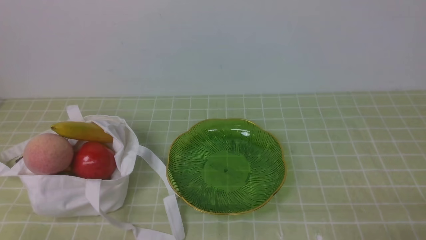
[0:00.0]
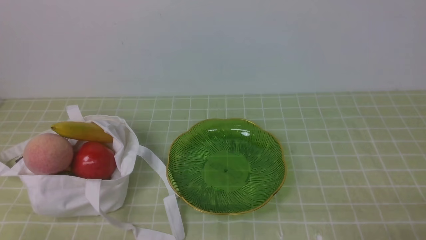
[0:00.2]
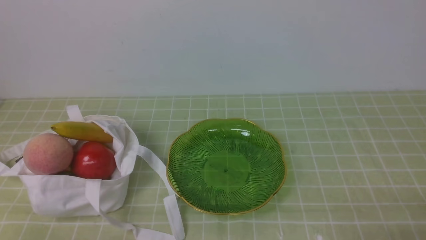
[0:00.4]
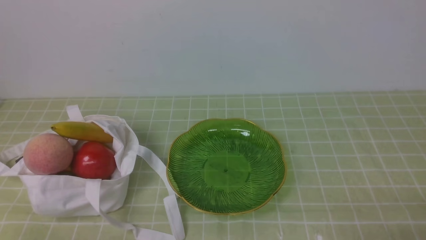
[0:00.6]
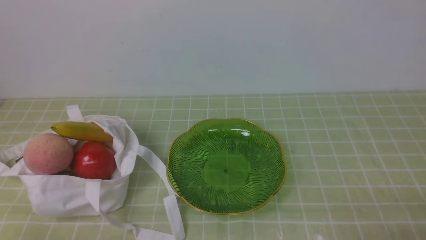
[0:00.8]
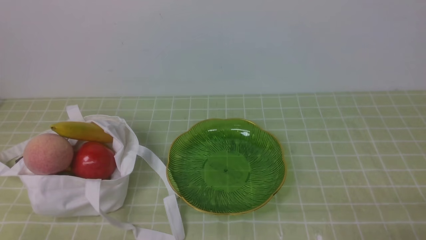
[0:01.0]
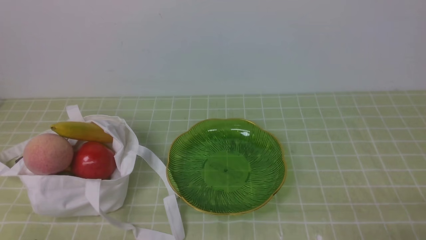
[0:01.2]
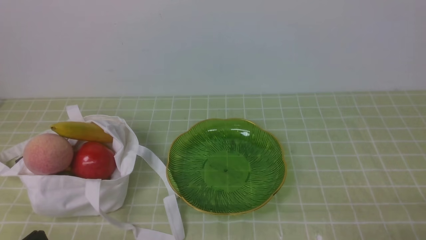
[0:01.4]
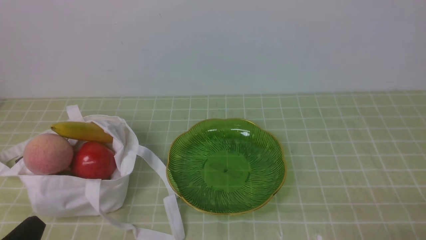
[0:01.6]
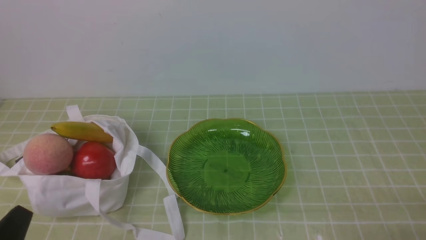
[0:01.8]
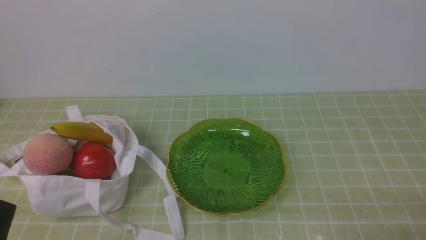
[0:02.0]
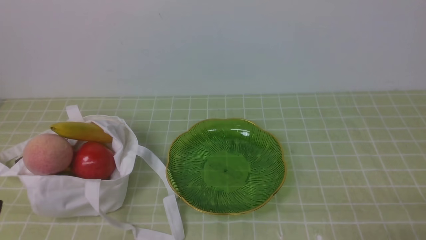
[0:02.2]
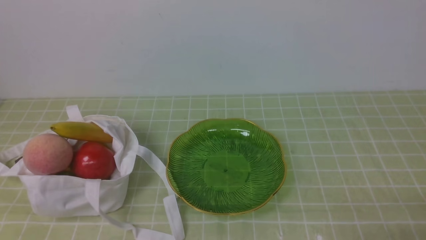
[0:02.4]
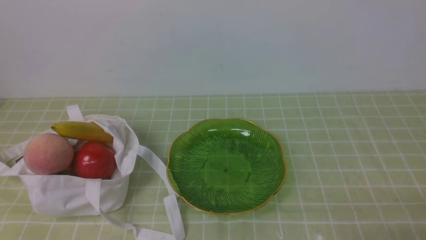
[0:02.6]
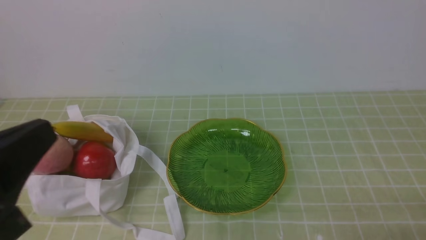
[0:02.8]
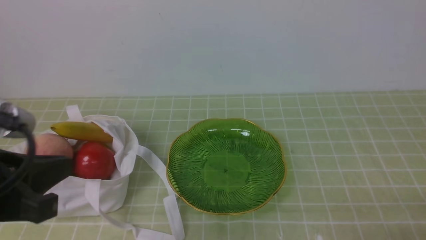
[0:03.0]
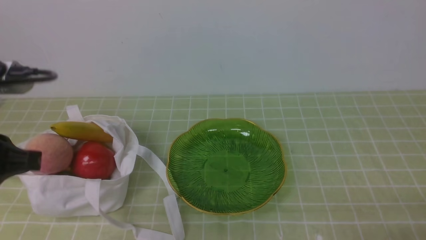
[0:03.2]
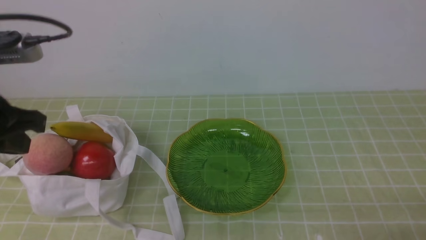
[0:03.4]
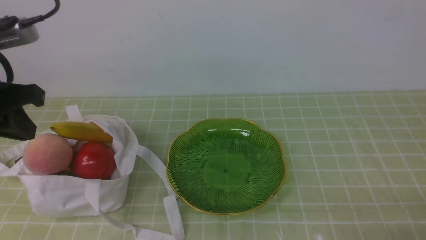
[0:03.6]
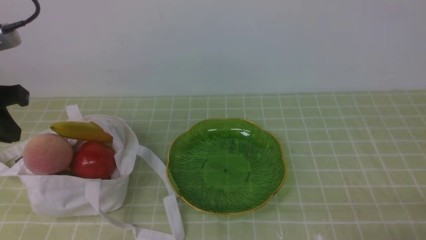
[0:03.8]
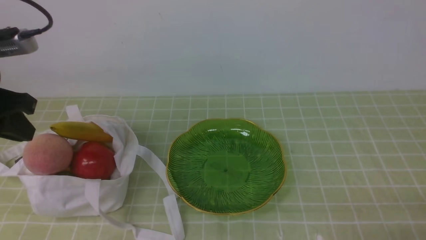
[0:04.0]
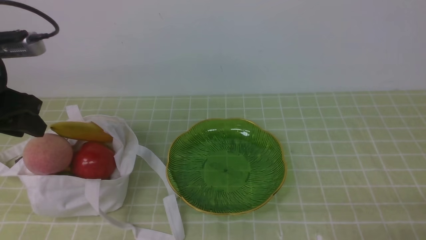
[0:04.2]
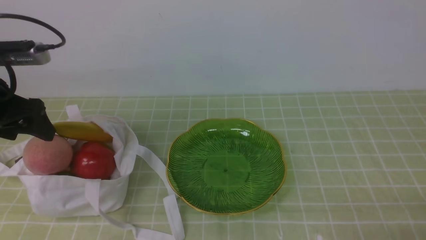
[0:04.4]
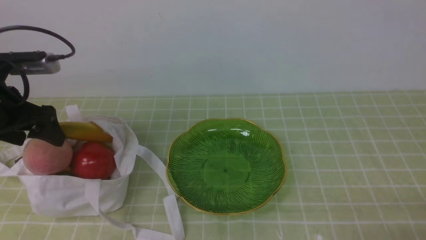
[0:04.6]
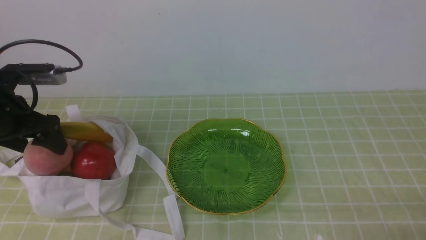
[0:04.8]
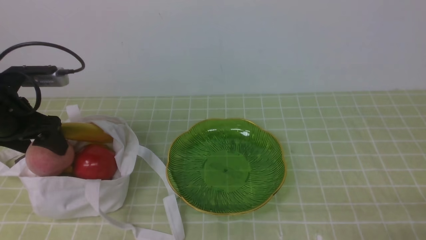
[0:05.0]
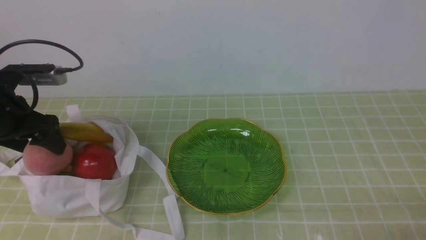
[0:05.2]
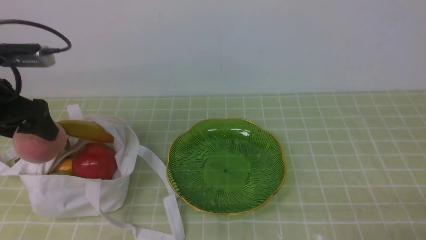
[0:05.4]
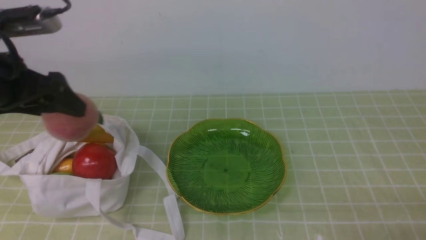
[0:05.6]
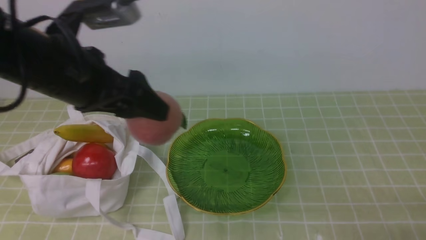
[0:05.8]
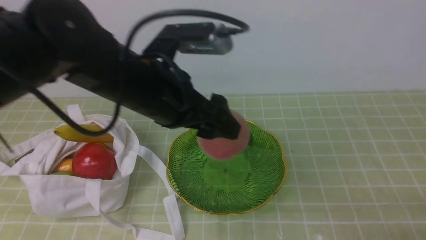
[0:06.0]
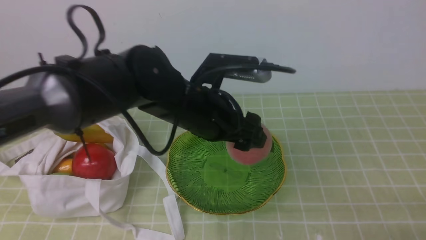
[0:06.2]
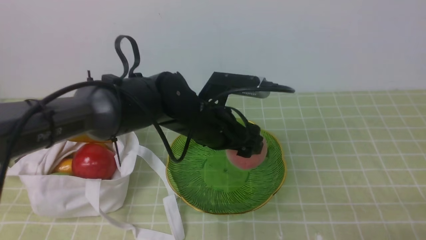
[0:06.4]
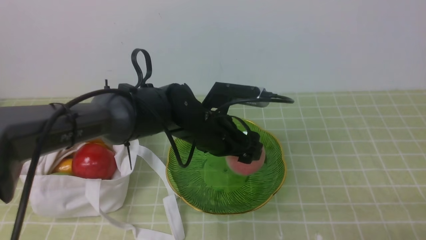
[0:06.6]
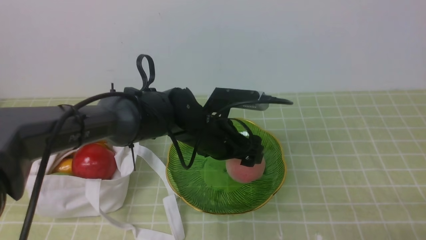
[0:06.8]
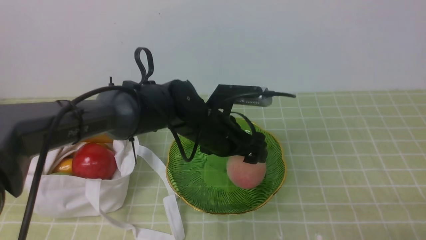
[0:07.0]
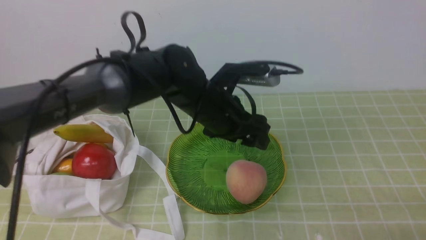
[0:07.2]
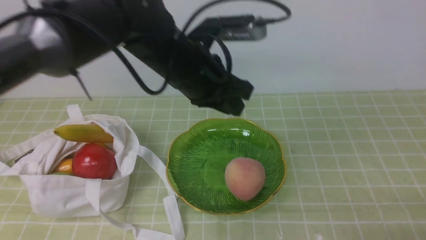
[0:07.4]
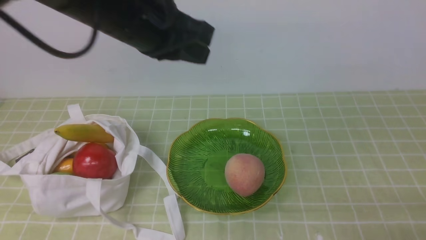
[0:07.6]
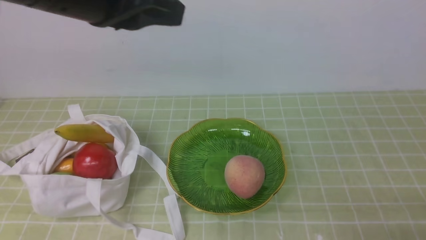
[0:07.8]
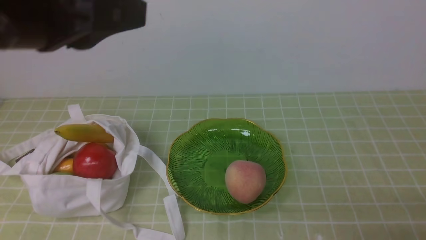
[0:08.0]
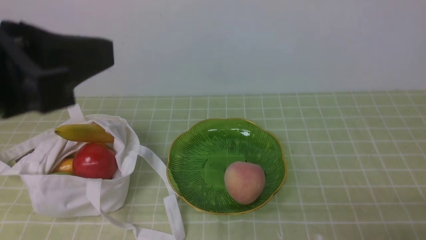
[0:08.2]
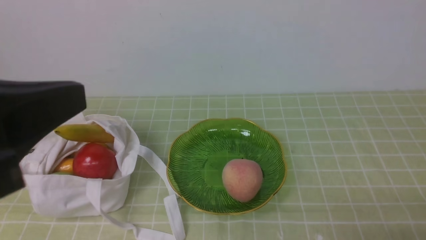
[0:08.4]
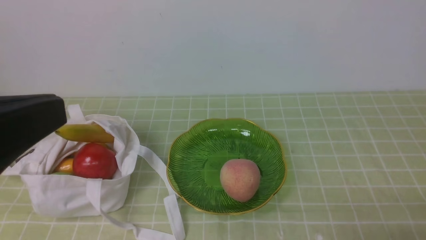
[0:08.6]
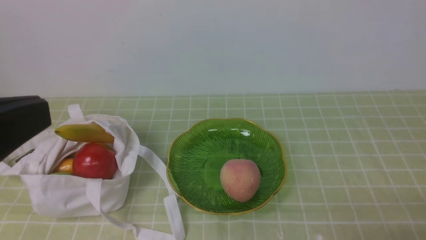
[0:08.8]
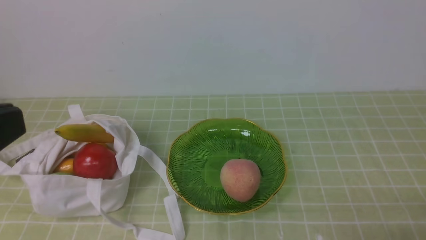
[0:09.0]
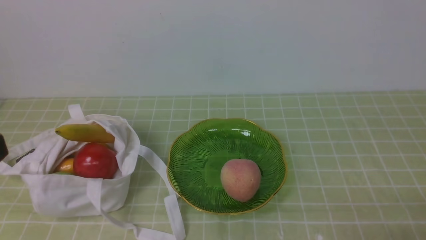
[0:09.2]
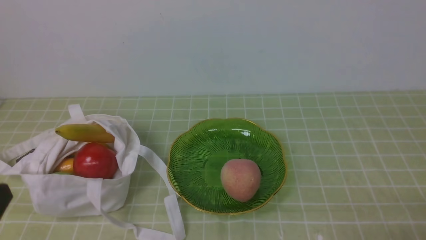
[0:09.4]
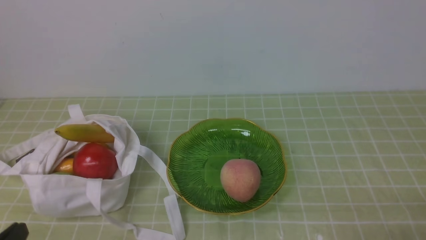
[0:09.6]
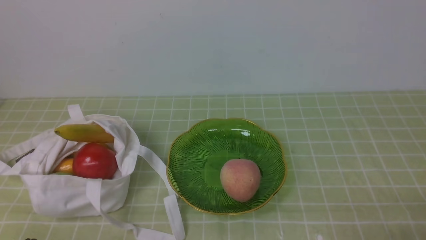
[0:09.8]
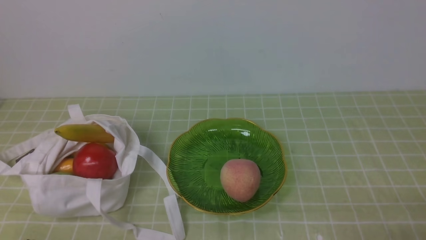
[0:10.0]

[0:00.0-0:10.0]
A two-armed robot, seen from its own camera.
Step, 0:00.0 to 0:05.0: use the left arm to grab a peach from the bag.
Step, 0:05.2 to 0:07.0: use the left arm to put the peach into the empty plate on the right.
0:01.4 to 0:02.8: The left gripper moves upward, roughly 15 cm.
0:02.8 to 0:04.2: The left gripper goes about 20 cm forward and to the left, and opens up.
0:04.2 to 0:05.8: The left gripper is displaced to the right by some 15 cm, and opens its fingers.
0:05.8 to 0:07.2: The left gripper heads to the right, downward and forward, covering about 15 cm.
0:07.2 to 0:08.6: The left gripper is displaced backward, to the left and upward by some 35 cm, and closes.
0:08.6 to 0:10.0: The left gripper shifts roughly 25 cm downward.

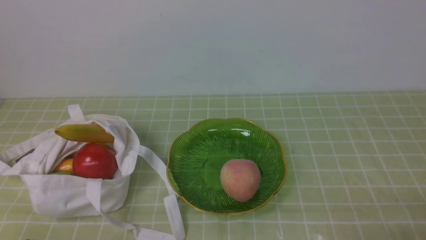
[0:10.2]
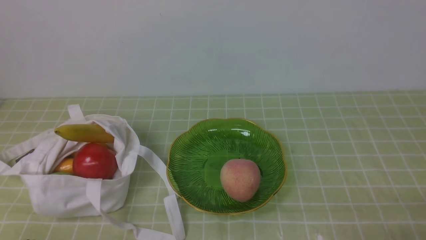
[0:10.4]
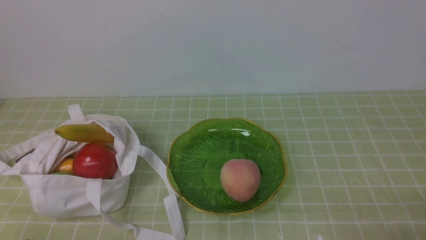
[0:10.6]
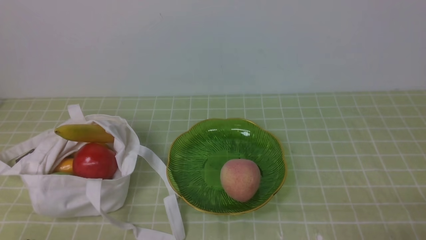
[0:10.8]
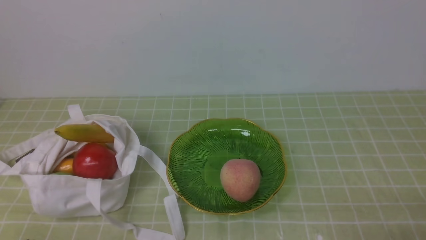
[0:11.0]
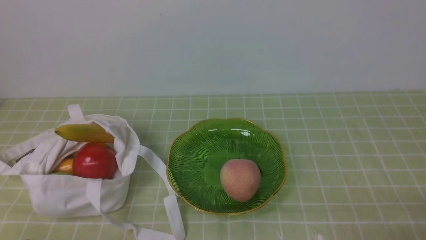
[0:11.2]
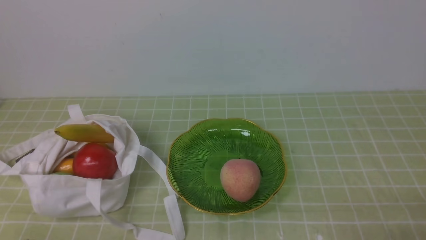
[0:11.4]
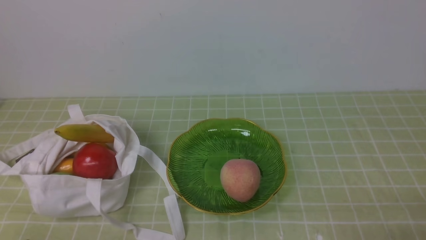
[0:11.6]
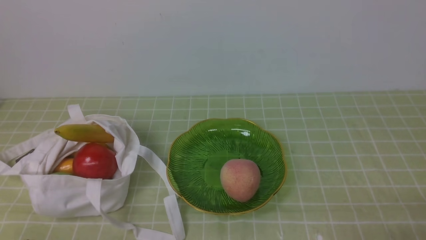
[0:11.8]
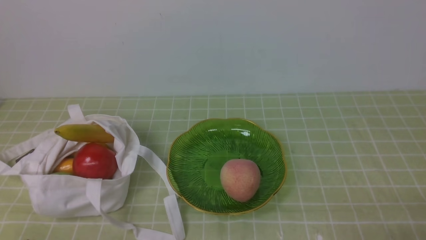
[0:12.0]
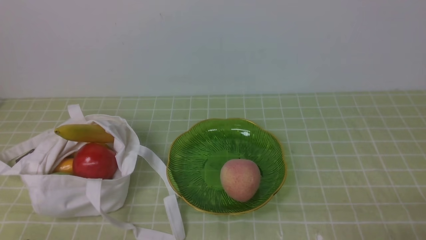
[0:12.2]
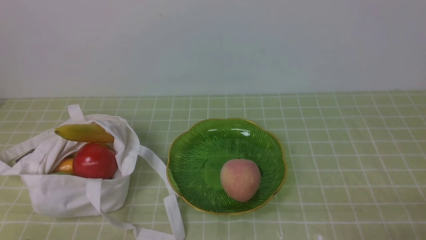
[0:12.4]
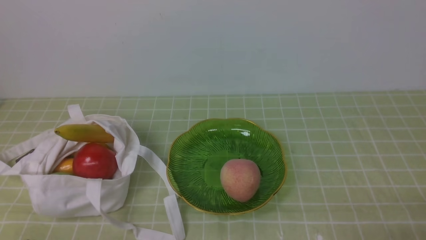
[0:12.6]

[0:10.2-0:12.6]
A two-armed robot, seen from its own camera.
0:10.2 to 0:12.6: Both grippers stay about where they are.
